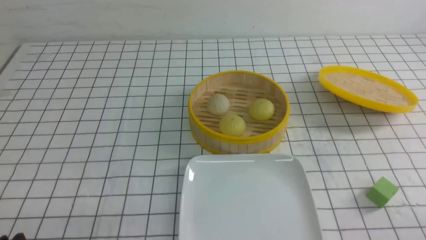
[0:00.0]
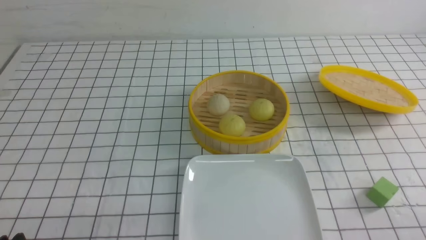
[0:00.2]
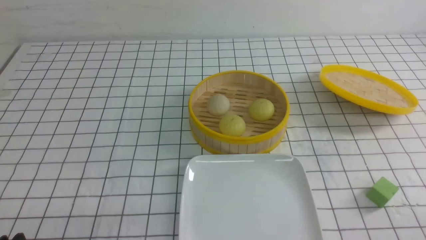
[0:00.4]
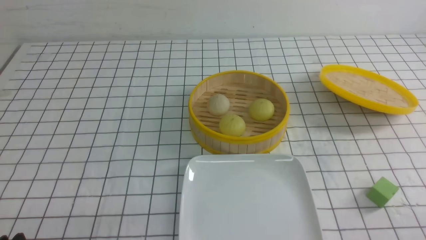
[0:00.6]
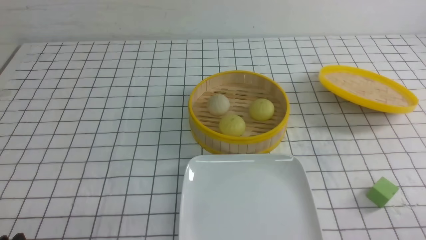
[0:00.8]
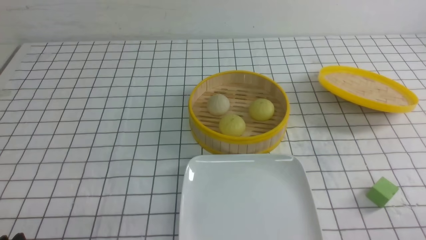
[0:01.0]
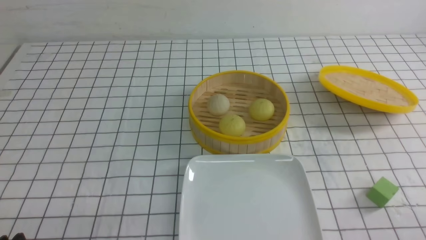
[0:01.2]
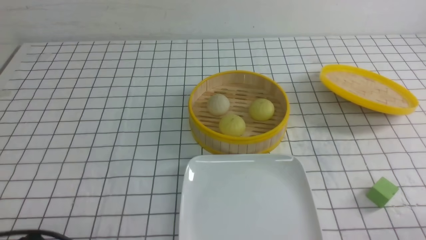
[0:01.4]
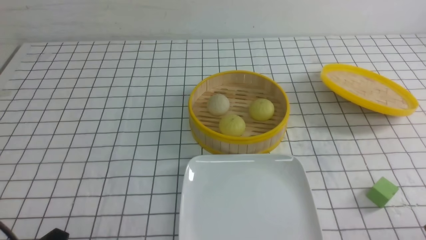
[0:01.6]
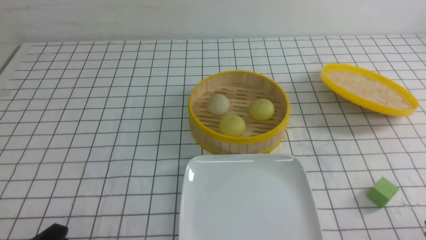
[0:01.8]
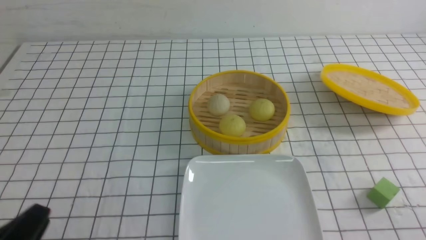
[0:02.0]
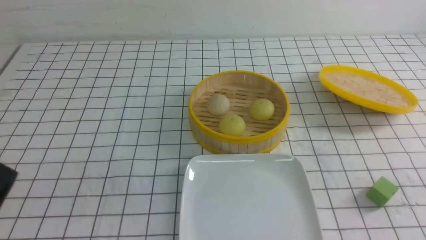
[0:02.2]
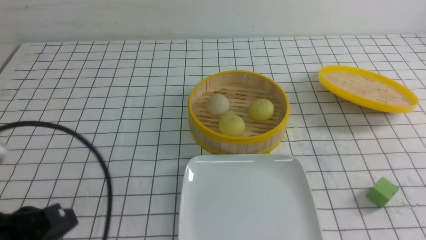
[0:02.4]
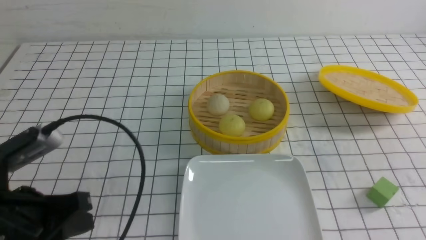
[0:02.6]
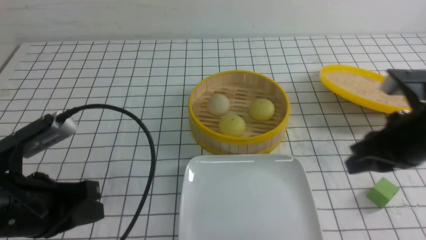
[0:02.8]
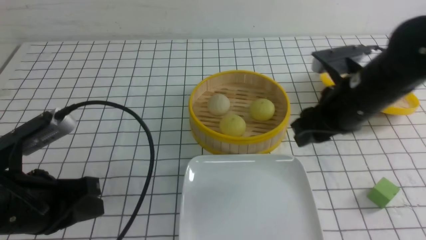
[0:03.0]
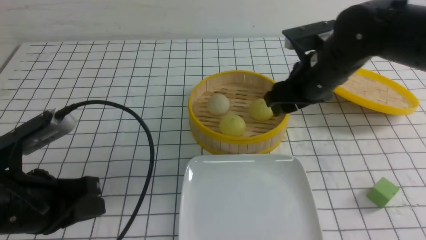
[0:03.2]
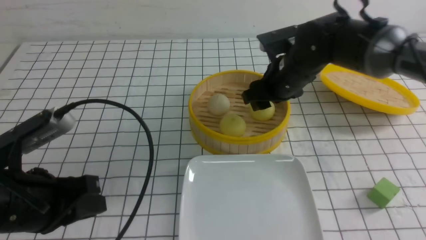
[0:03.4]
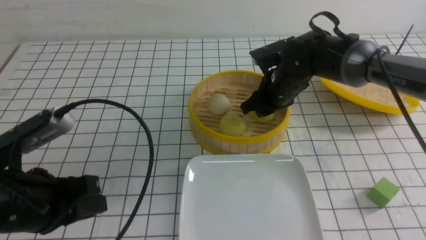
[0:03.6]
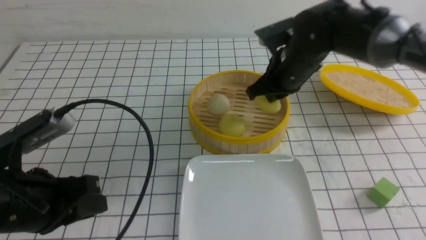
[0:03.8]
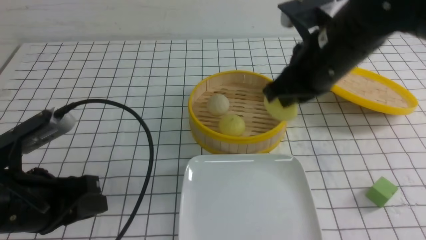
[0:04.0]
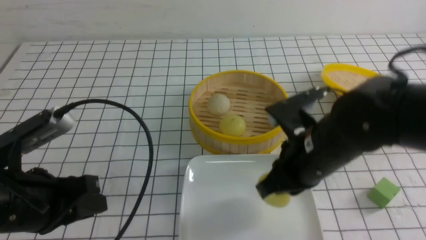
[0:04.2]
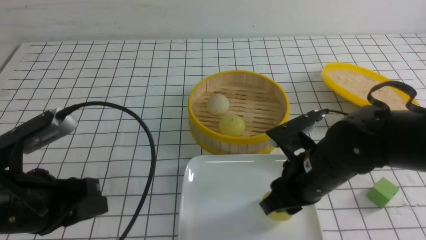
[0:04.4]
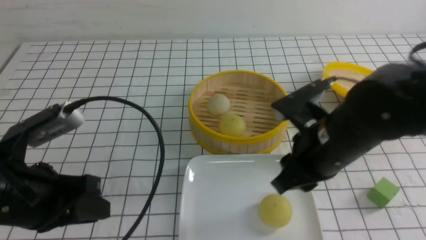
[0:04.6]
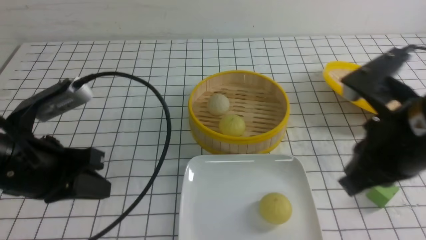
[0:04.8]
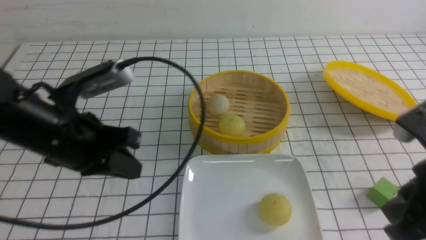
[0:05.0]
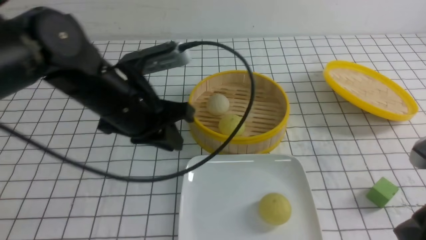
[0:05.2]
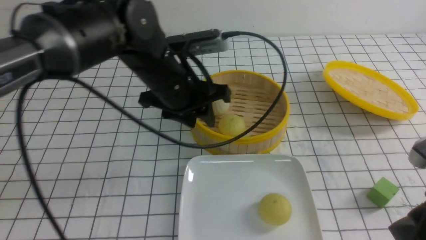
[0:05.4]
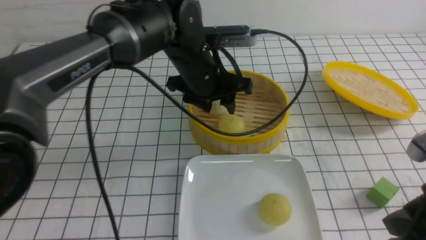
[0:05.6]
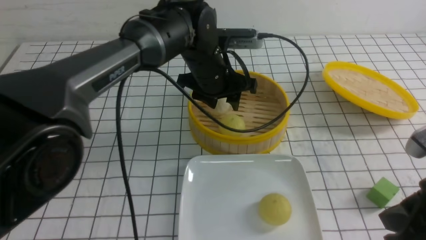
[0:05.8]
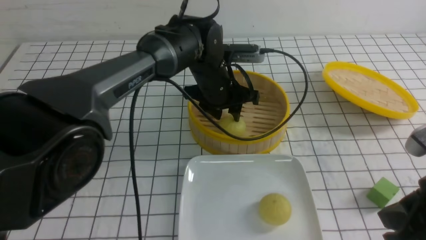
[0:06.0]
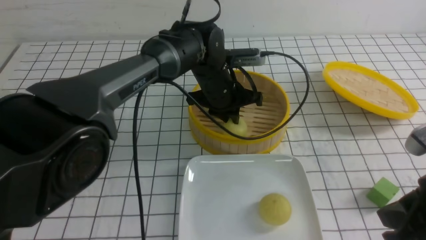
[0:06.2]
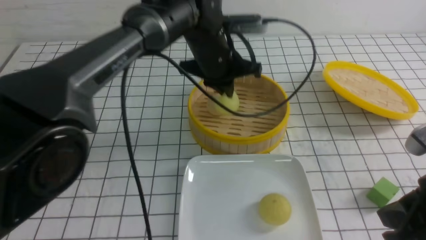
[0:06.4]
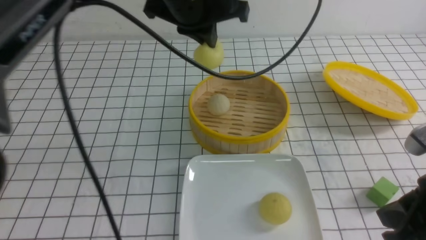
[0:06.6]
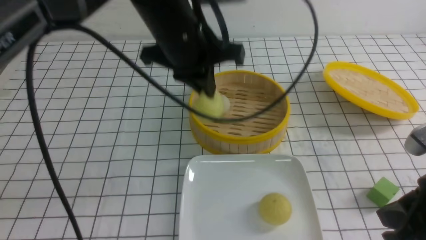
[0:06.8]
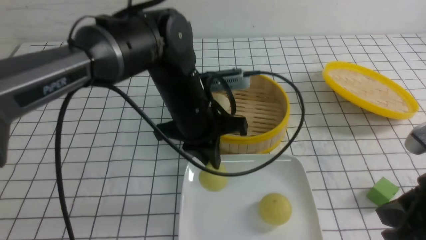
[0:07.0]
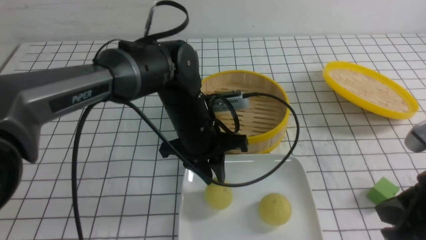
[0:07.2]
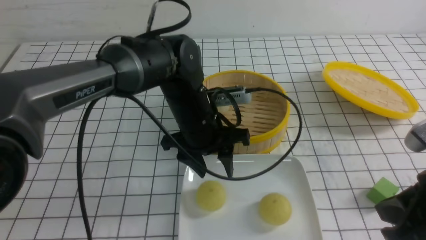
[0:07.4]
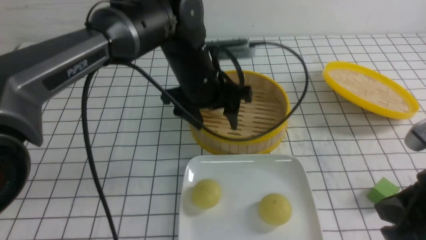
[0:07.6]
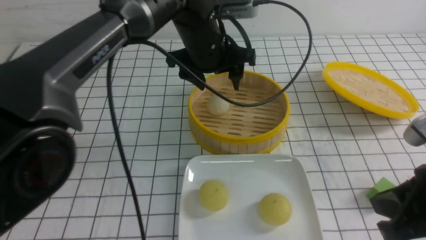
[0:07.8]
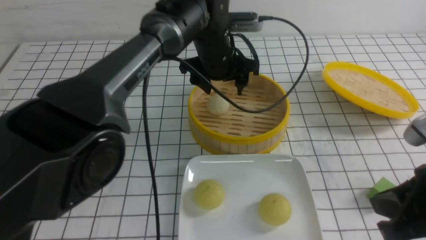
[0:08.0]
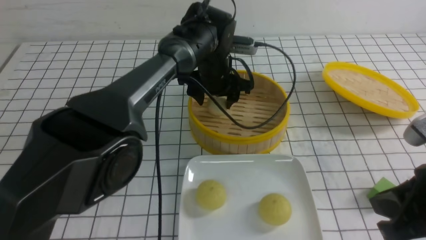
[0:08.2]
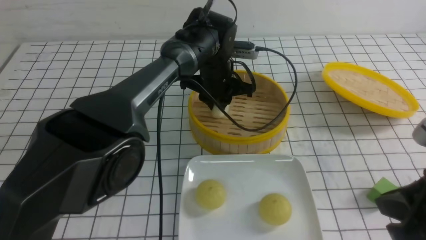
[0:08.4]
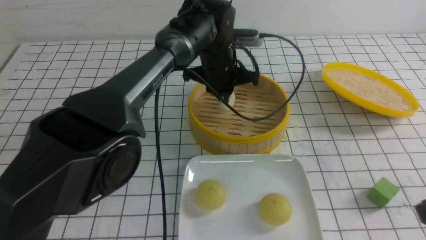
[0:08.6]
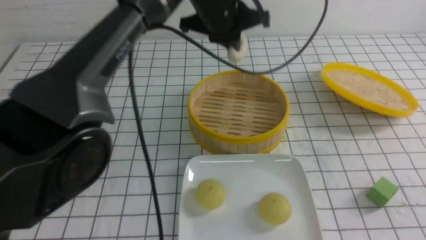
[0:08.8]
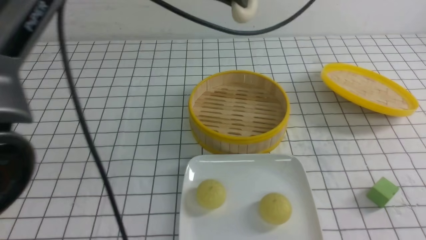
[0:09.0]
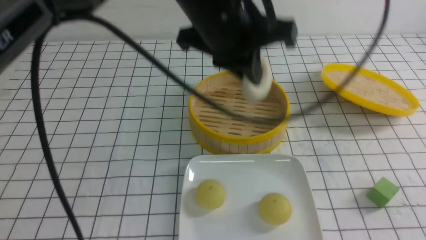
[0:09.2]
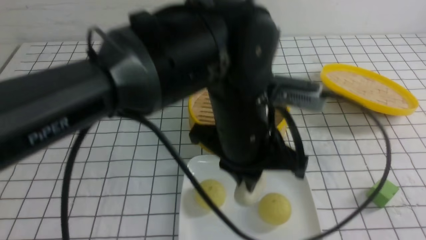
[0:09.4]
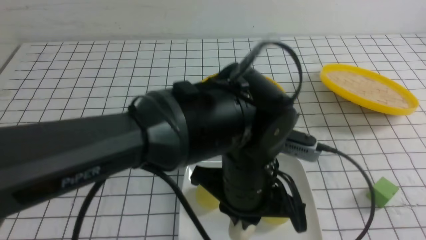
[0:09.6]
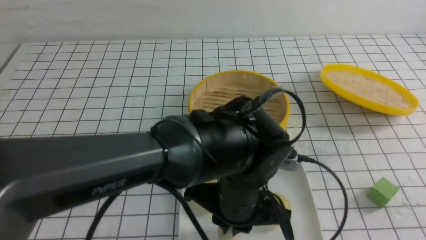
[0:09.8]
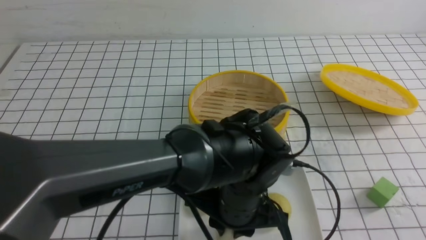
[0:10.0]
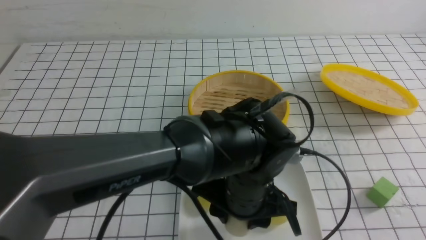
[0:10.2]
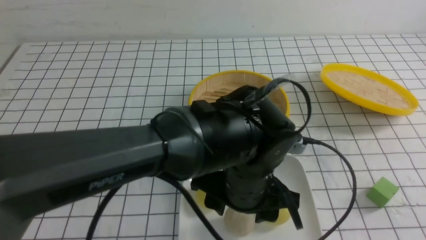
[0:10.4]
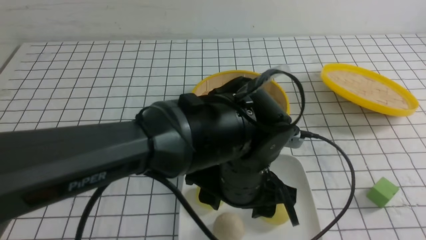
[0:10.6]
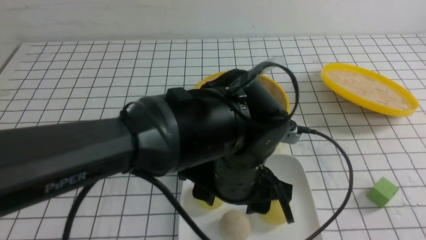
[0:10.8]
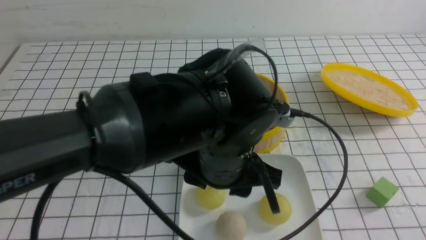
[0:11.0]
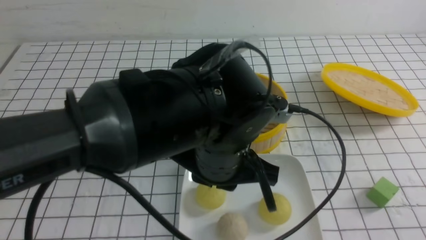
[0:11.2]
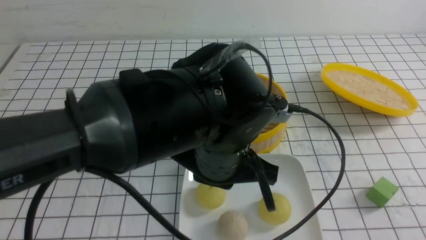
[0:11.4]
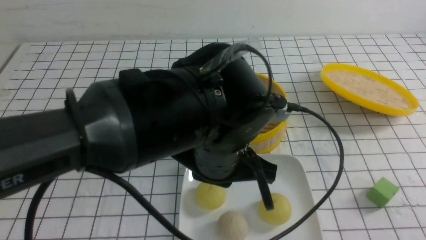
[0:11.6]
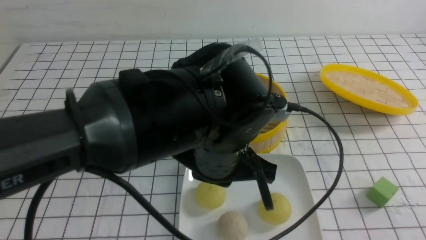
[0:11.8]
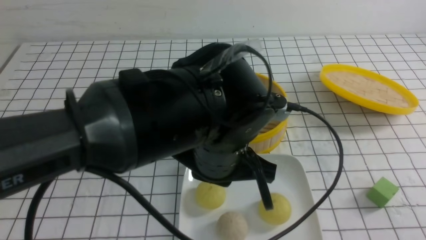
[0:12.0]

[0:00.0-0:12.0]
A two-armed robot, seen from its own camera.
Step, 0:00.0 to 0:03.8: use the right arm to grab the steamed stuffed bun that is closest to it.
Step, 0:04.0 to 0:04.8: use the right arm to put the steamed stuffed bun into the plate.
Step, 0:05.0 to 0:06.2: use the left arm to grab the steamed stuffed bun that is closest to it.
Step, 0:06.4 to 0:07.4: use the left arm to put the steamed stuffed bun into the plate.
Step, 0:07.6 to 0:08.4: use the left arm to grab the steamed stuffed bun that is closest to it.
Step, 0:08.8 to 0:10.6: use the left arm to put the steamed stuffed bun into the plate.
0:01.6 to 0:03.0: The right gripper shifts approximately 30 cm forward, to the left and upward, and closes and opens again. Meanwhile the left gripper shifts about 15 cm forward and upward.
0:03.0 to 0:04.4: The right gripper moves downward, backward and to the left, approximately 10 cm, and closes up.
0:04.4 to 0:06.0: The left gripper is displaced forward and to the right by about 35 cm, while the right gripper heads backward, to the right and upward, covering approximately 15 cm, and closes its fingers.
0:06.0 to 0:07.6: The left gripper moves up and down over some 15 cm, changing direction 2 times, and opens up.
0:07.6 to 0:09.0: The left gripper moves upward, approximately 15 cm, and closes up; the right gripper heads backward and to the right, covering about 10 cm.
0:09.0 to 0:10.4: The left gripper heads downward and backward, covering approximately 20 cm, and opens its fingers.
0:10.4 to 0:12.0: The right gripper travels downward by some 5 cm, and closes up. The left gripper goes about 5 cm upward, and closes its fingers.

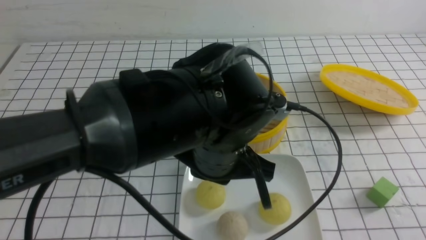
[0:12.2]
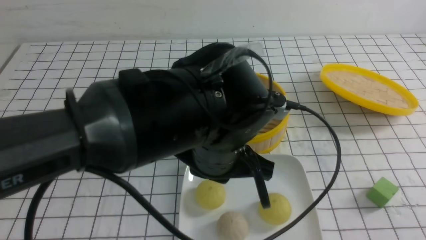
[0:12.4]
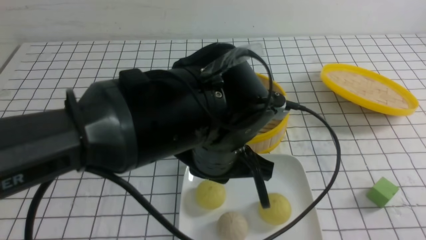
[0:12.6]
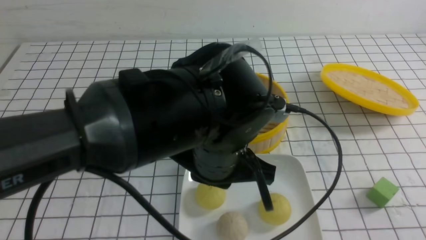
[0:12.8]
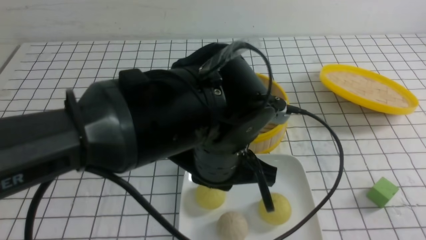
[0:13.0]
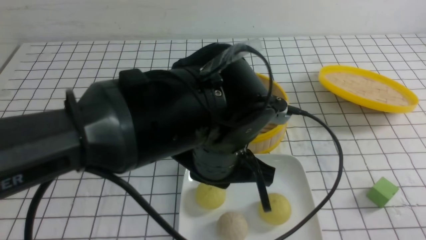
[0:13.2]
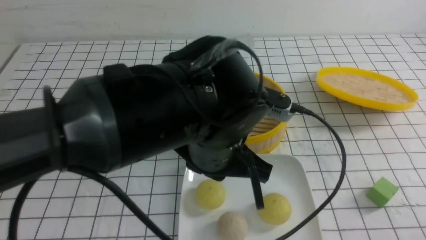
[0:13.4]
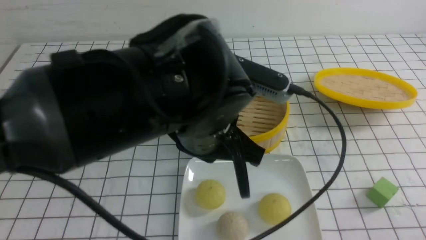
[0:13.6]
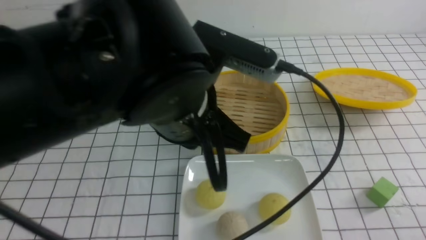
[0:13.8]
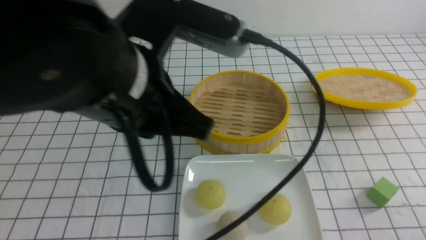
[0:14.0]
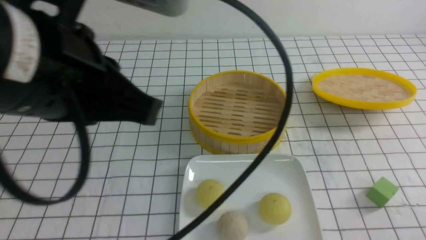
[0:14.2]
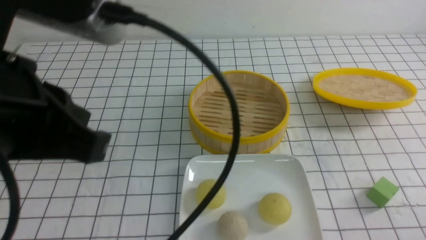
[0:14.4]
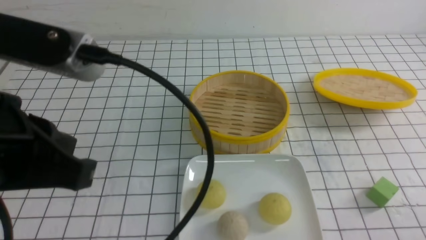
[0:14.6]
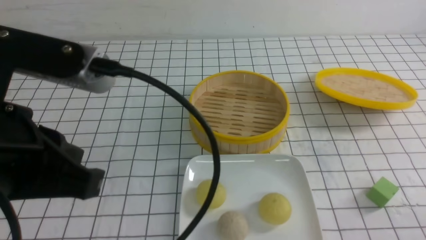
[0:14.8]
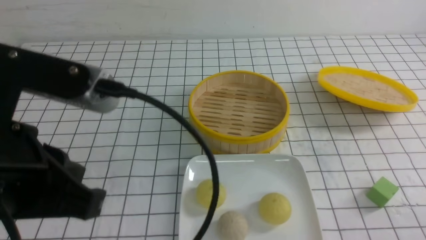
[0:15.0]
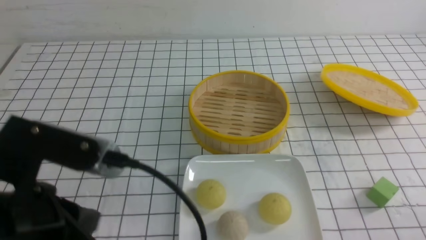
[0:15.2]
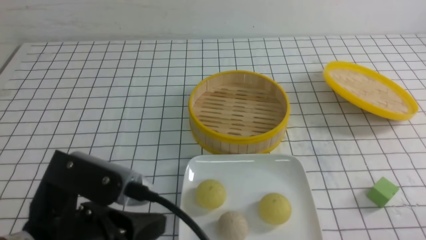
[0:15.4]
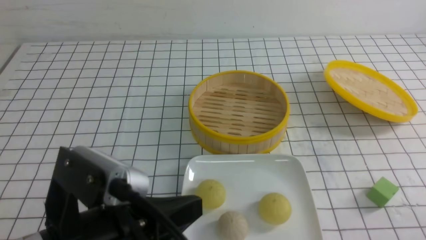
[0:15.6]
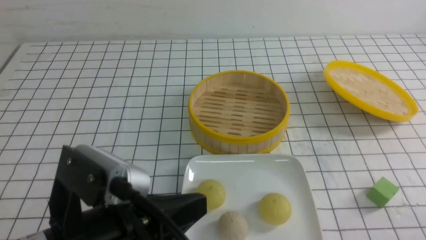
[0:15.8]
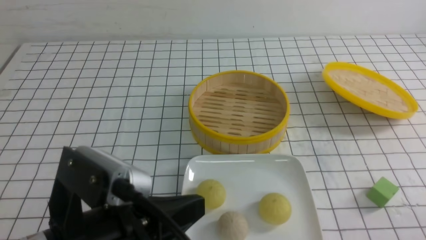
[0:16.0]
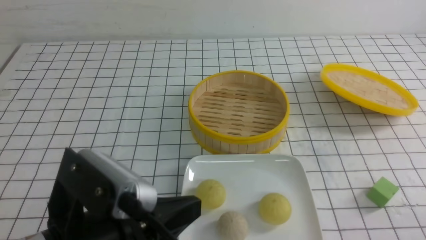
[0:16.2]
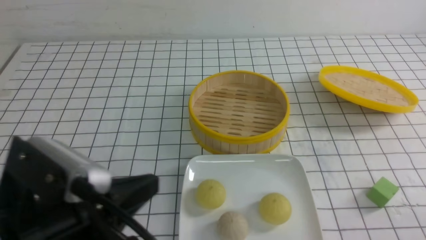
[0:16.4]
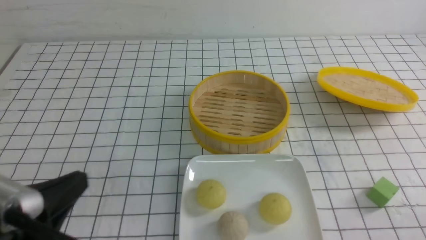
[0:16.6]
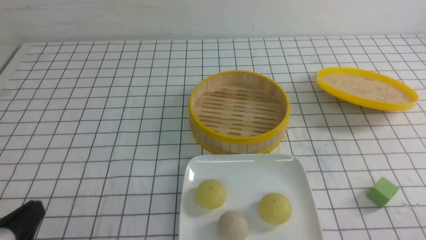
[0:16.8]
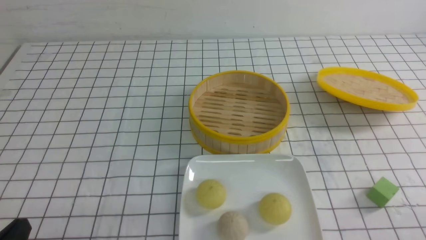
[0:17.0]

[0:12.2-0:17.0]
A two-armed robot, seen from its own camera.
0:12.2 to 0:13.8: The right gripper goes about 10 cm downward. Meanwhile the left gripper heads upward, covering roughly 10 cm.
0:13.8 to 0:15.4: The left gripper is displaced to the left, backward and downward by about 15 cm.
0:15.4 to 0:17.0: The left gripper travels to the left and downward by some 15 cm.
